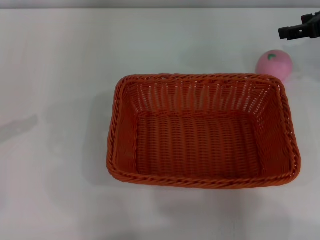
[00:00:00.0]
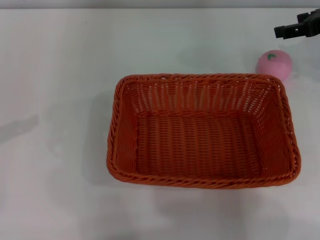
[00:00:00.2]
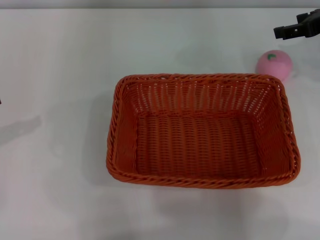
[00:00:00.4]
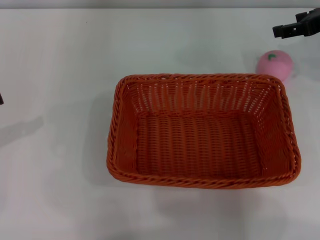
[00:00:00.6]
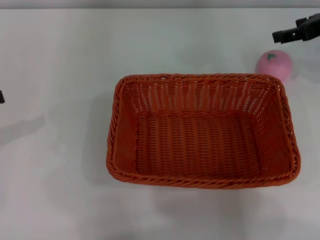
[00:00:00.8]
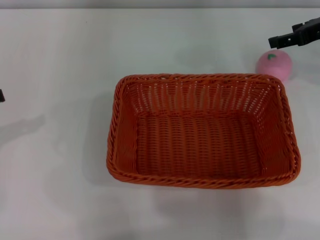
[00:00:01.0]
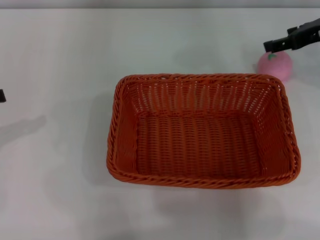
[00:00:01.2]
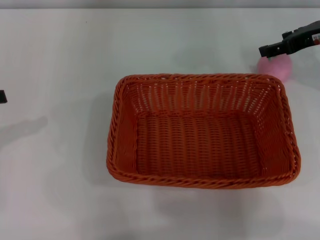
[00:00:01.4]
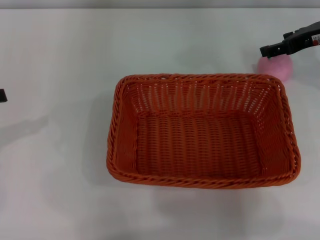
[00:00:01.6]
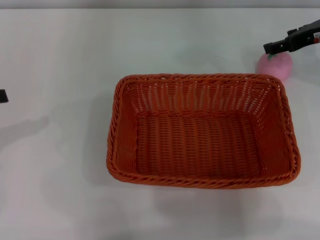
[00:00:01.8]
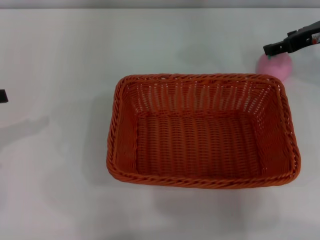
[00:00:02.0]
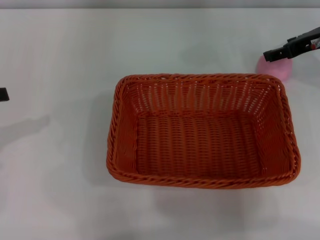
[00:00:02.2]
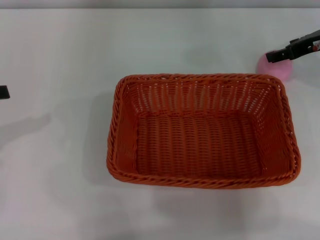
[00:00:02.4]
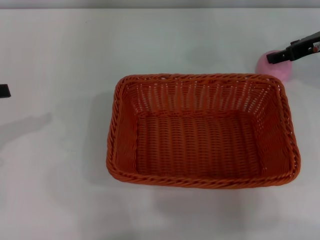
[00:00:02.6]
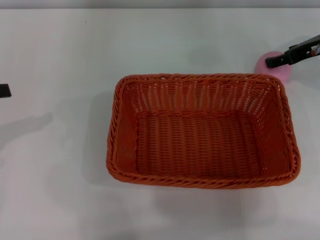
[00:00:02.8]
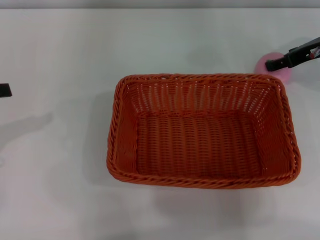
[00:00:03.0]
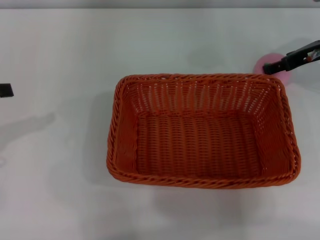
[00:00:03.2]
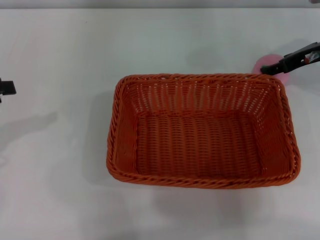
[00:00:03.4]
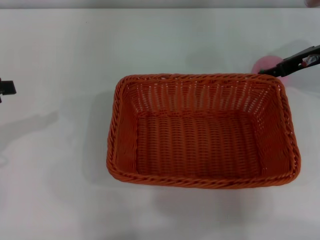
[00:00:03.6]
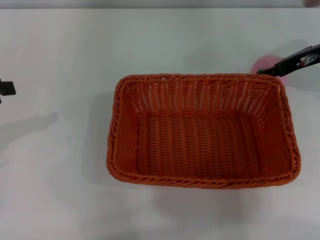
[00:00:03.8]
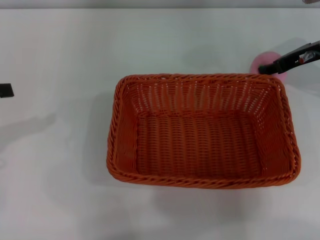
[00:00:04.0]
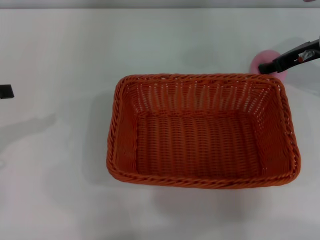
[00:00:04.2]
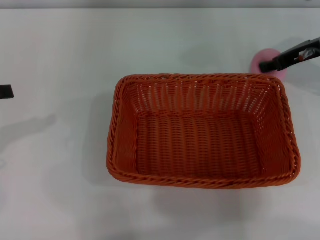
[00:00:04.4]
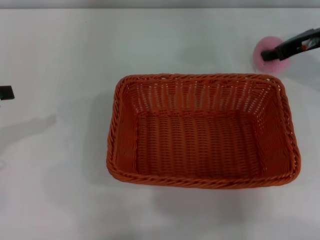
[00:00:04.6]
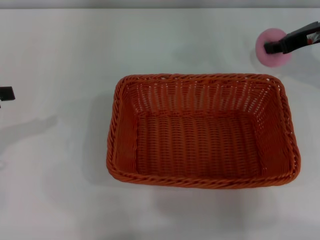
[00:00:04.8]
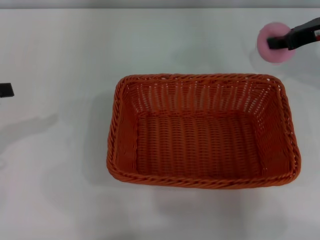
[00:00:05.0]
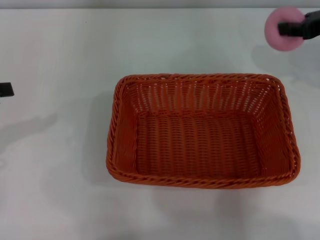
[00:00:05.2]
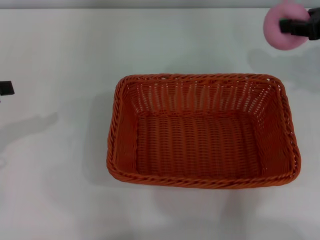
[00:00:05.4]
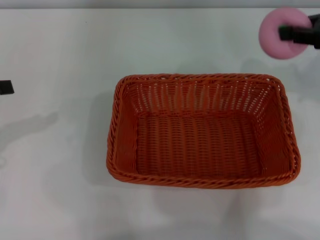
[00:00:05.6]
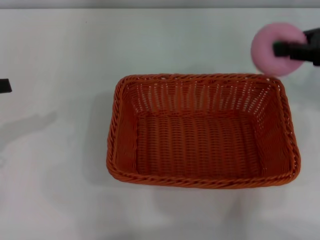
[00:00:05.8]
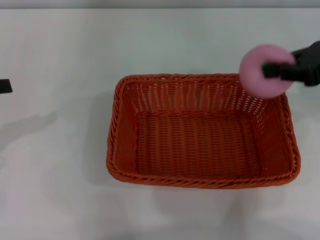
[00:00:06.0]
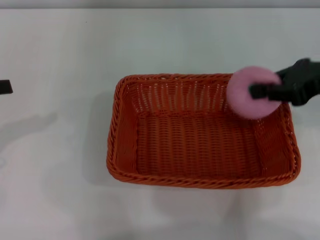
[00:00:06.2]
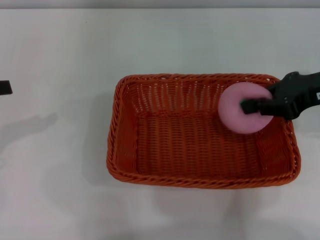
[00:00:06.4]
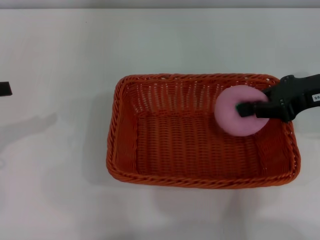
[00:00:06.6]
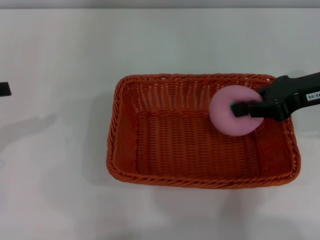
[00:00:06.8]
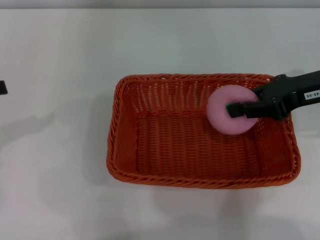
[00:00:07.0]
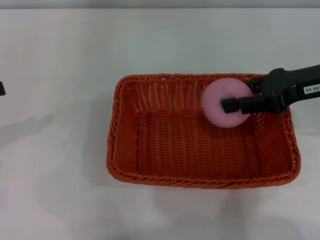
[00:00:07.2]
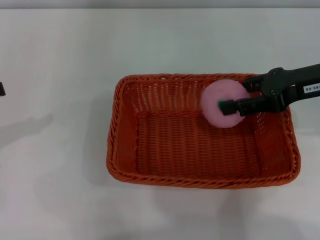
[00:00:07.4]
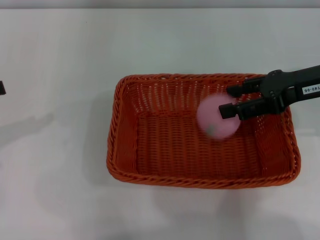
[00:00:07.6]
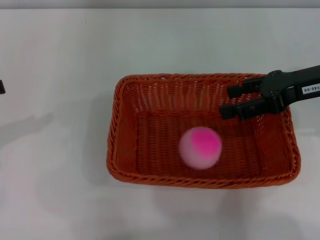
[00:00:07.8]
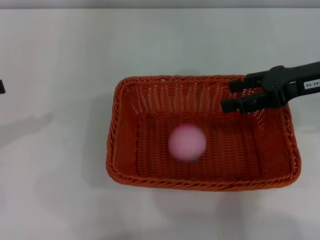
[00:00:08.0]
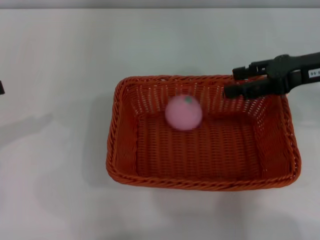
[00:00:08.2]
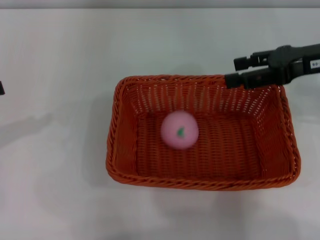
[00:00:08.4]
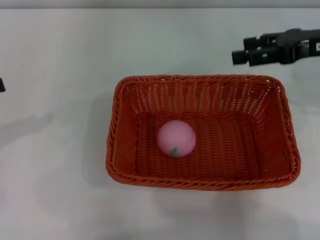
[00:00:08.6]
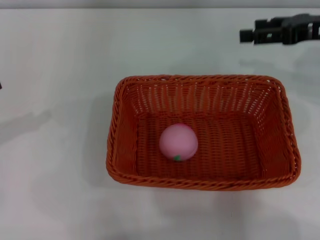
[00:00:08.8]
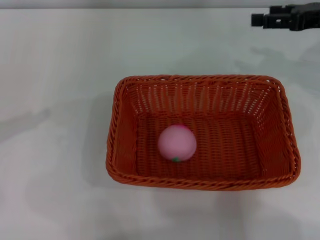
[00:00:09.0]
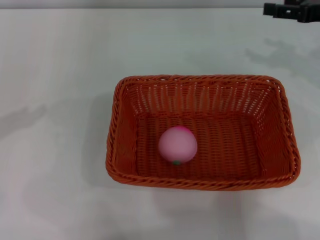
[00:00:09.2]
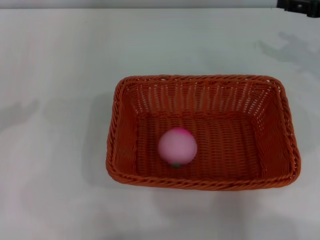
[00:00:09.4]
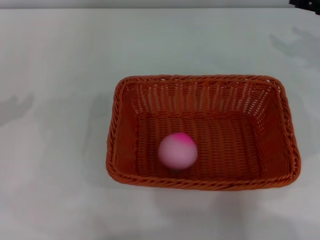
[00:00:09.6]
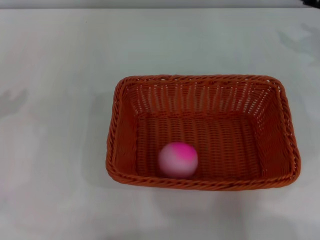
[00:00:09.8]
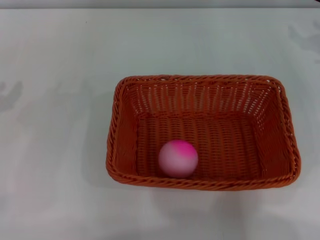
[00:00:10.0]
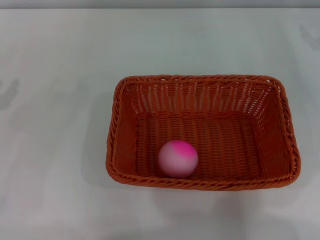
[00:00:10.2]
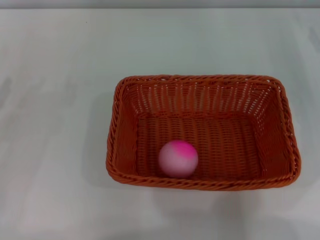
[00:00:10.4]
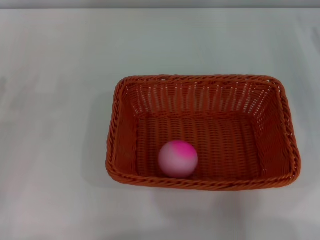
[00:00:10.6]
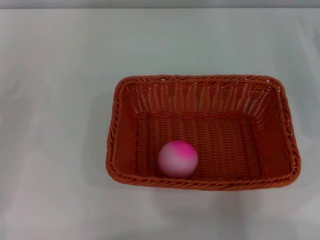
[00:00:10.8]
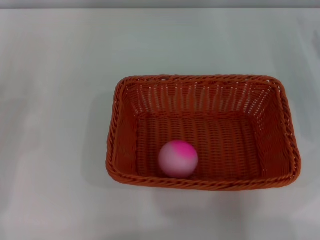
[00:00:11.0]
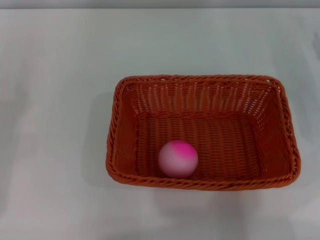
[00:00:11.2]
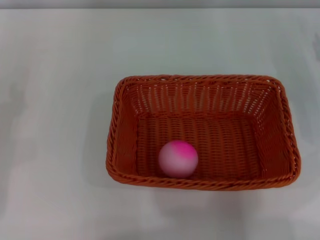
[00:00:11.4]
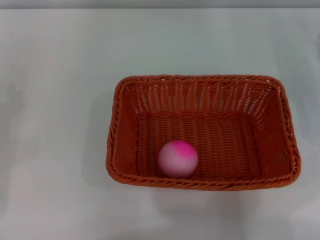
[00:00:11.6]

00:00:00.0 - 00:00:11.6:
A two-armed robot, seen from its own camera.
Step, 00:00:00.0 - 00:00:05.0: Pick up the peach with the left gripper.
00:00:00.0 - 00:00:01.4: The grippers move only a little.
00:00:01.4 - 00:00:02.8: The grippers make only small movements.
00:00:02.8 - 00:00:04.4: The right gripper closes.
00:00:04.4 - 00:00:05.8: The right gripper heads backward and upward, covering roughly 10 cm, and closes.
00:00:05.8 - 00:00:07.2: The right gripper shifts by some 5 cm.
00:00:07.2 - 00:00:08.8: The right gripper shifts by approximately 5 cm, and opens up.
00:00:08.8 - 00:00:10.2: The right gripper is displaced to the right and downward by roughly 10 cm. Meanwhile the left gripper moves downward, some 5 cm.

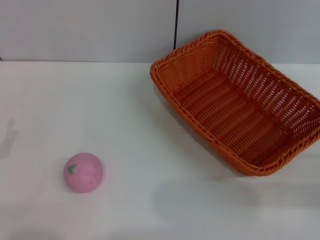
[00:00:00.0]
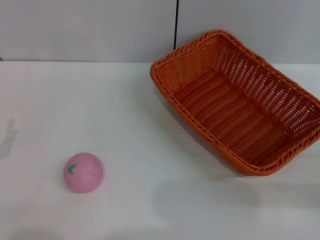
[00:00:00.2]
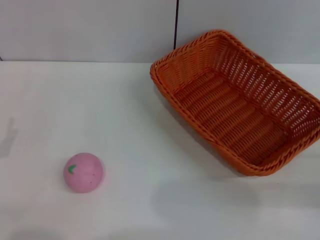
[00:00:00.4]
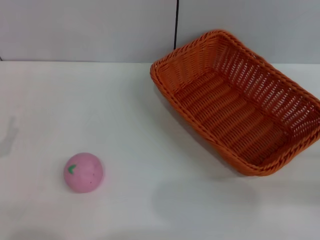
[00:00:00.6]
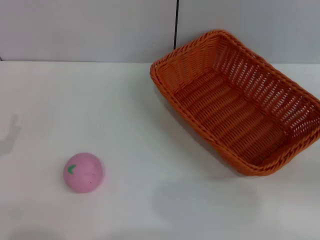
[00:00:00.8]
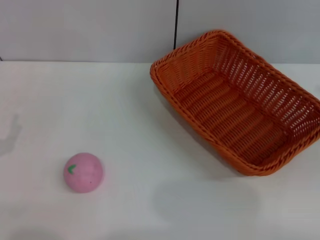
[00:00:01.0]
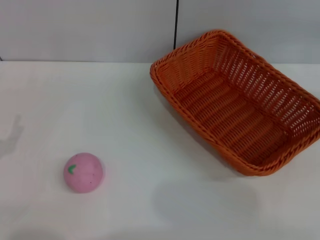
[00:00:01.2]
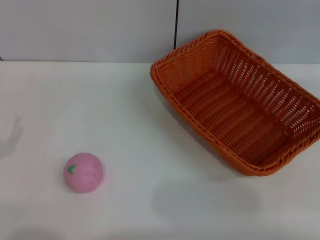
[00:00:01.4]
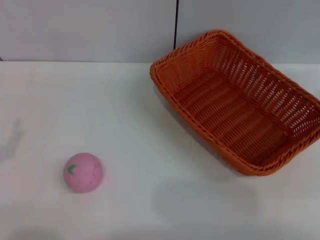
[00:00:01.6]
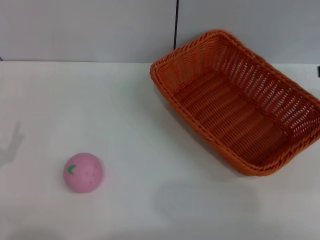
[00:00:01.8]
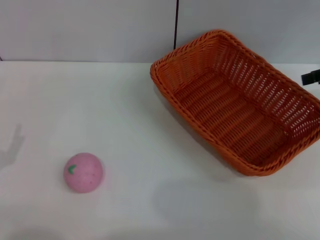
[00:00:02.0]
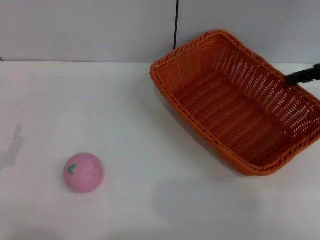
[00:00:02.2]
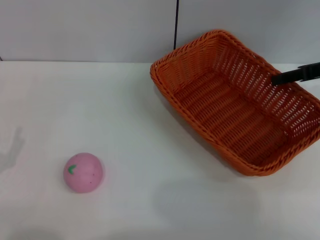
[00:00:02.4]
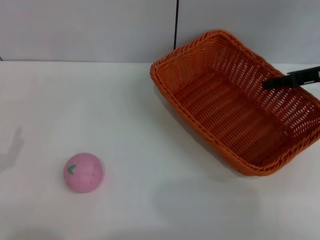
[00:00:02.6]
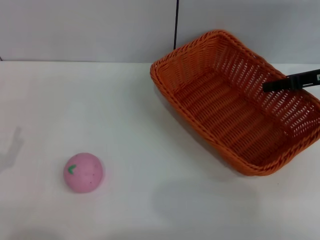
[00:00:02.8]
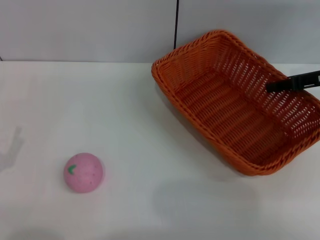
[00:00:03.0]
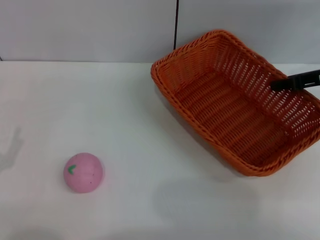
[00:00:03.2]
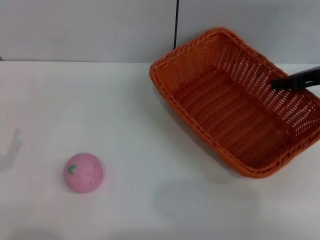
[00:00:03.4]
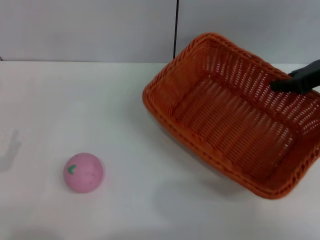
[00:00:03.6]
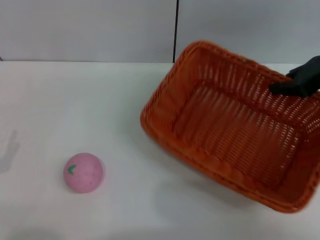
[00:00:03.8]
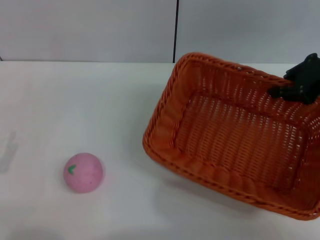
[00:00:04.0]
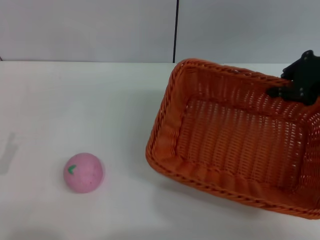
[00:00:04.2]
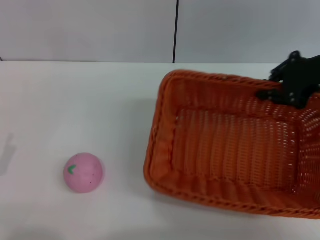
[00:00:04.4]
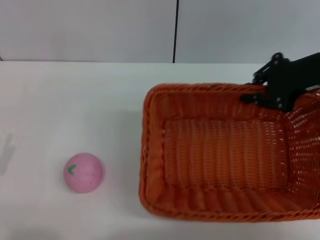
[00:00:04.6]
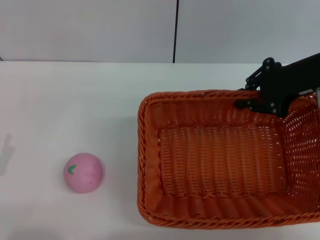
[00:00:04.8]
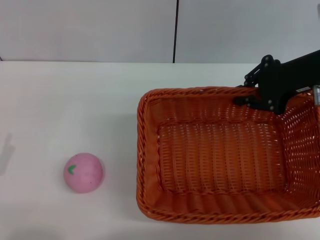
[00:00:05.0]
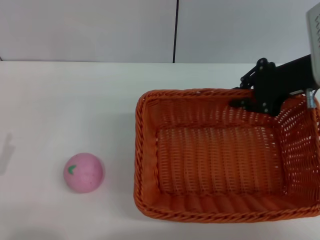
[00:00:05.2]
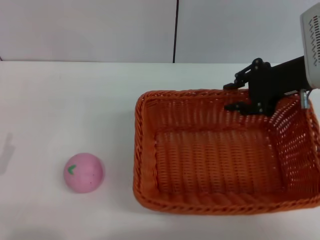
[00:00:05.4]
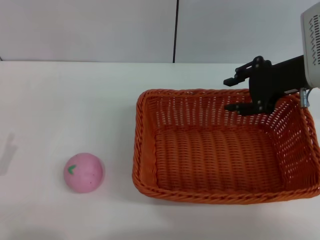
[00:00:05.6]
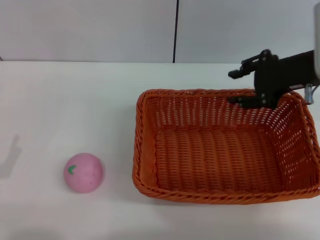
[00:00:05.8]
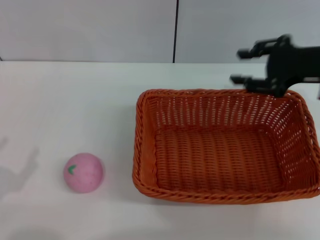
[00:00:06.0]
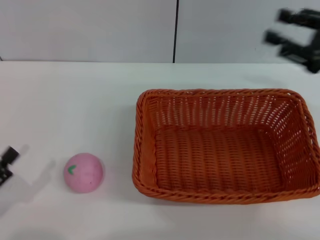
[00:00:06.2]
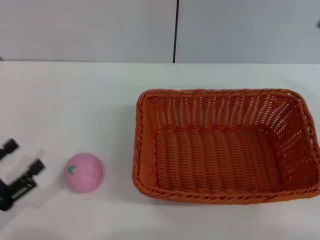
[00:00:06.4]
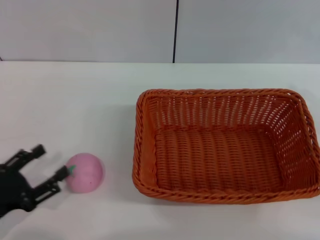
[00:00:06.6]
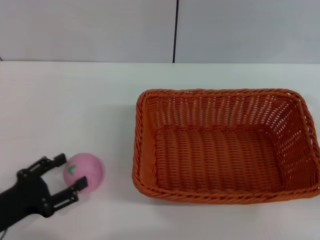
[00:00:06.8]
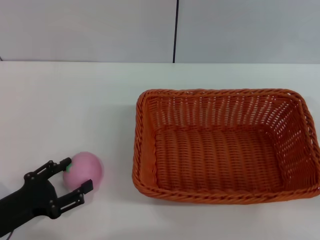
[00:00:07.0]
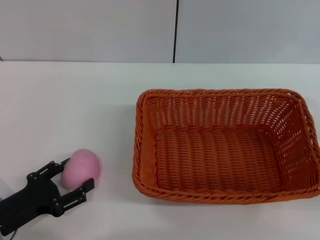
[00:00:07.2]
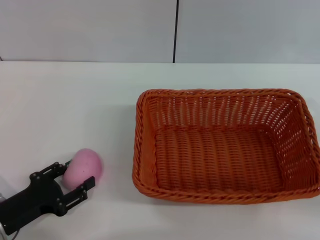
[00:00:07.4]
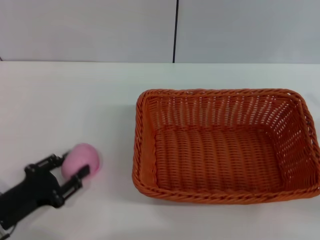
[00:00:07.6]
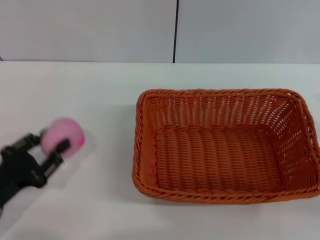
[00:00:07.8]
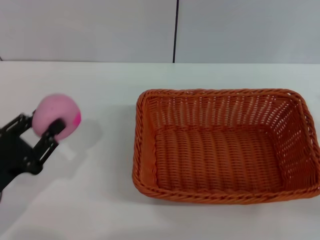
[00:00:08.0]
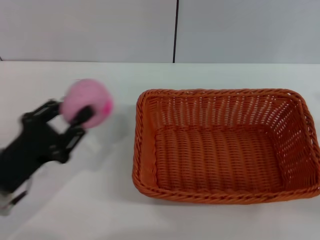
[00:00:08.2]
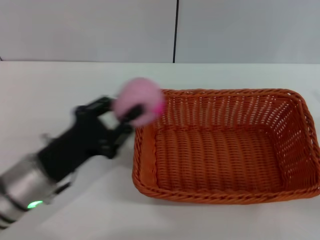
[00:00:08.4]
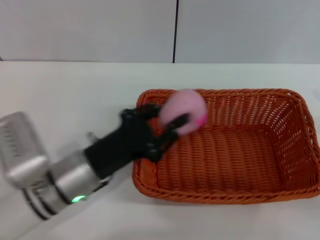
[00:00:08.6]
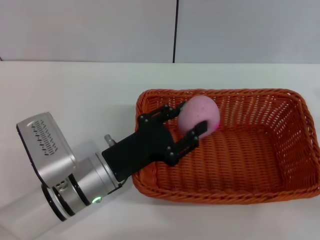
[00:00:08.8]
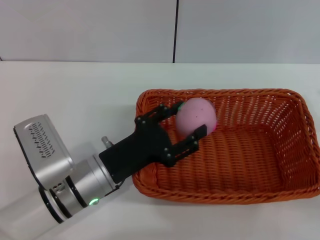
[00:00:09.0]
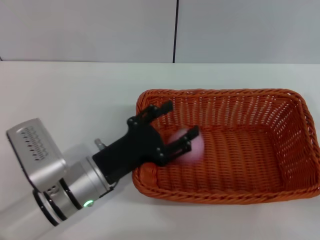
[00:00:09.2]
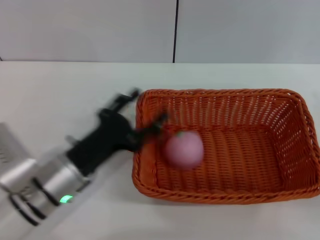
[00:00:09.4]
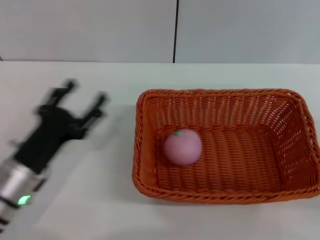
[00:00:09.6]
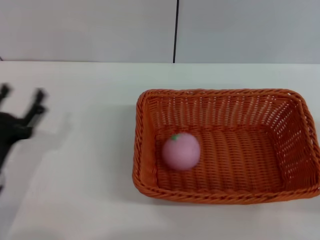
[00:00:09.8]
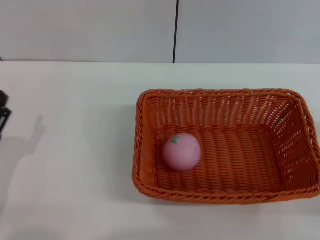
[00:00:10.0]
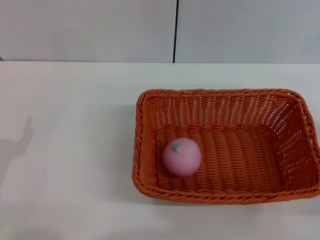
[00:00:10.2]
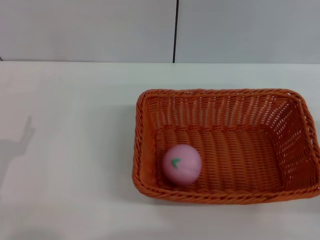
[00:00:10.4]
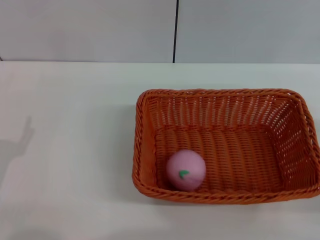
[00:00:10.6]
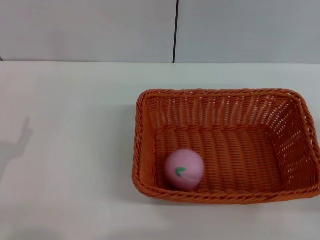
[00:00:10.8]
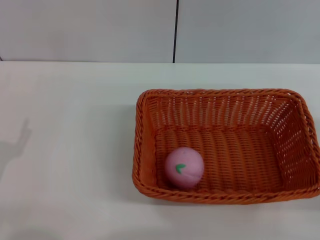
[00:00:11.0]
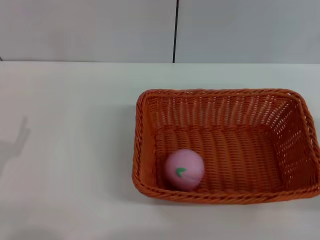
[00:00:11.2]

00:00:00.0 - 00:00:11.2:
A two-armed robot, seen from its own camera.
Step, 00:00:00.0 - 00:00:03.8: Pick up the light basket with the right gripper.
Step, 00:00:04.0 - 00:00:06.0: Place the light basket in the center of view with the right gripper.
Step, 00:00:06.2 - 00:00:08.0: Pick up the peach with the left gripper.
Step, 00:00:08.2 - 00:00:09.4: Place the peach into the basket with the left gripper.
00:00:00.0 - 00:00:01.6: The right gripper shifts some 20 cm upward and forward.
00:00:01.6 - 00:00:03.2: The right gripper moves to the left and downward, roughly 10 cm, and closes its fingers.
00:00:03.2 - 00:00:04.8: The right gripper moves to the left, some 5 cm.
00:00:04.8 - 00:00:06.4: The right gripper heads backward and to the right, covering about 15 cm, and opens its fingers.
00:00:06.4 - 00:00:08.0: The left gripper changes place by roughly 5 cm, and closes up. The right gripper travels downward by approximately 10 cm.
00:00:08.0 - 00:00:09.6: The left gripper heads to the right, covering roughly 5 cm, and opens its fingers.
00:00:09.6 - 00:00:11.2: The left gripper moves to the left and backward, roughly 10 cm.
